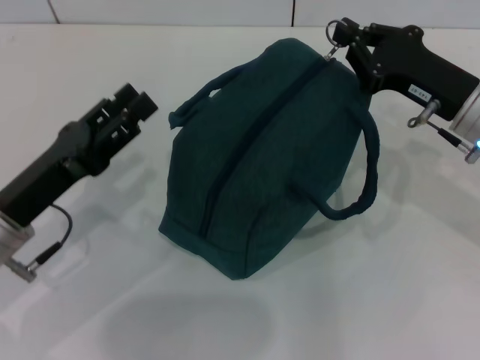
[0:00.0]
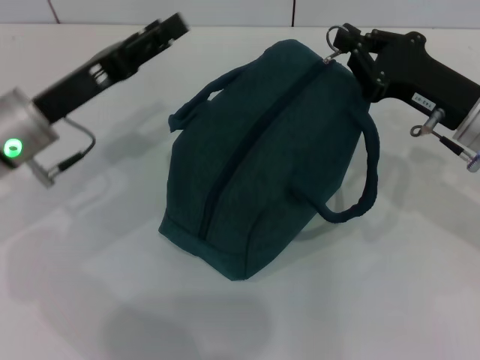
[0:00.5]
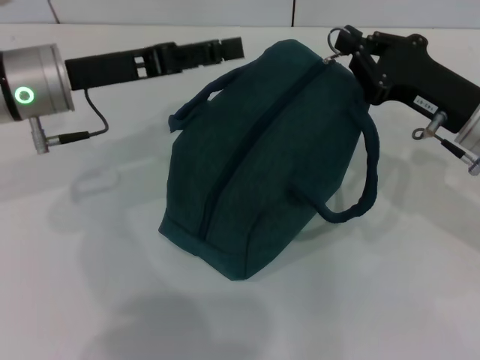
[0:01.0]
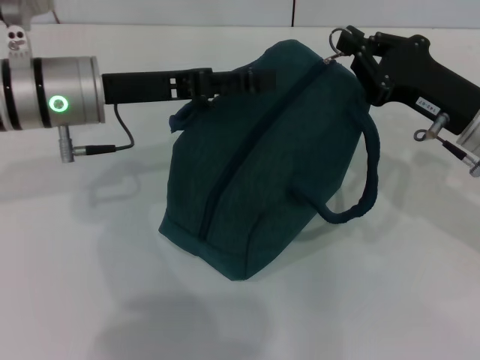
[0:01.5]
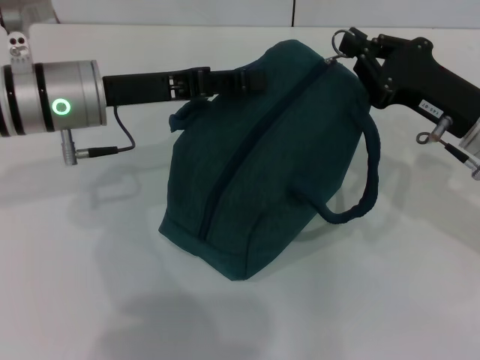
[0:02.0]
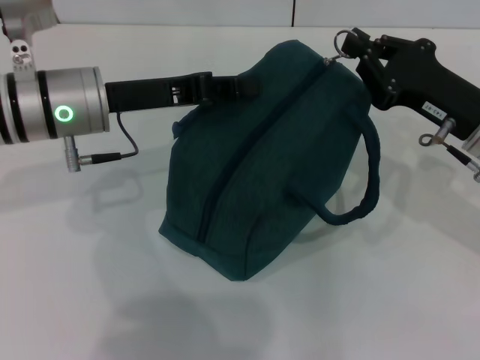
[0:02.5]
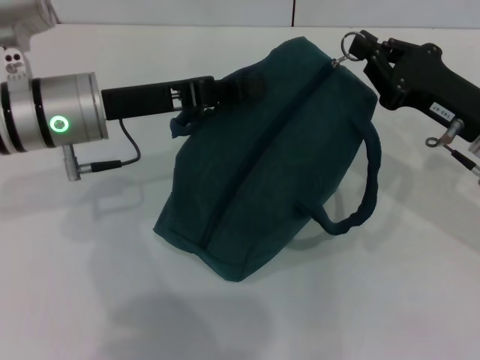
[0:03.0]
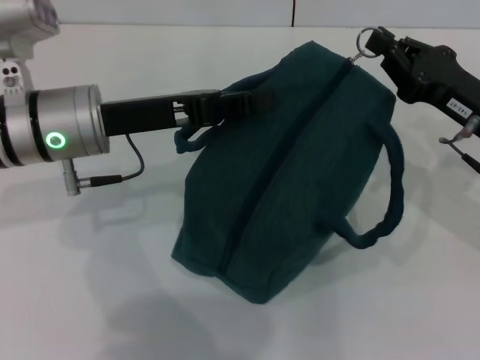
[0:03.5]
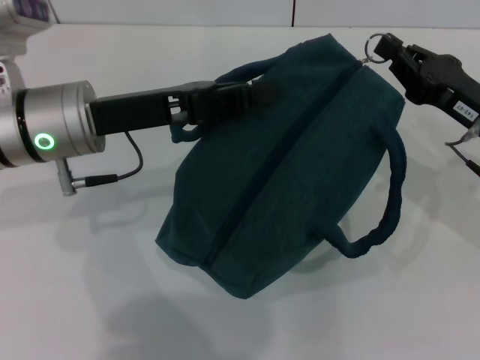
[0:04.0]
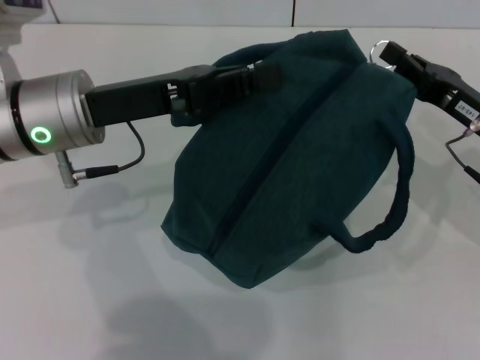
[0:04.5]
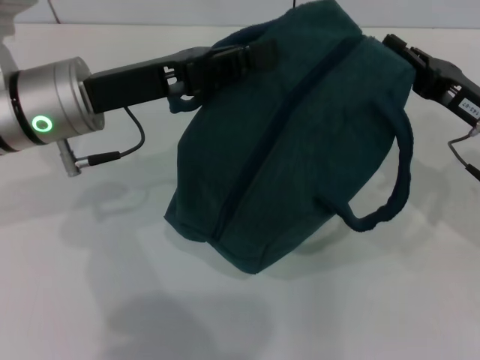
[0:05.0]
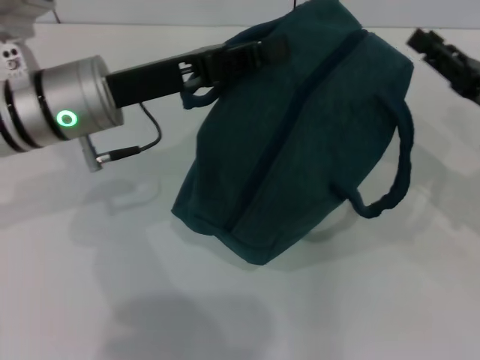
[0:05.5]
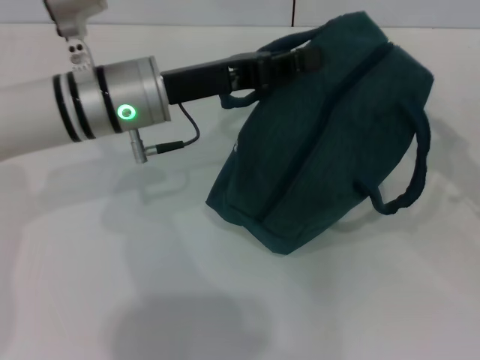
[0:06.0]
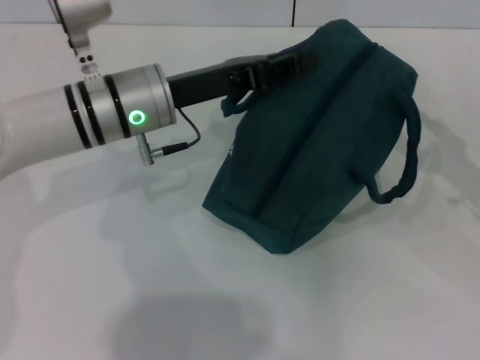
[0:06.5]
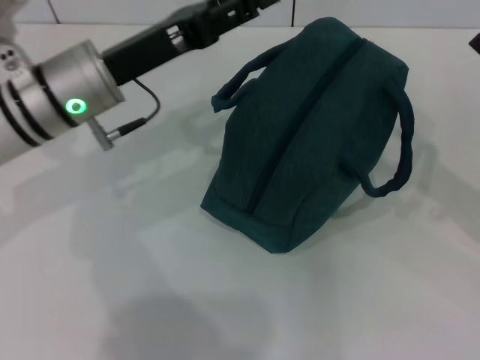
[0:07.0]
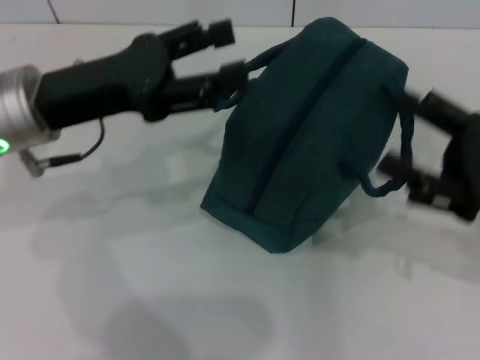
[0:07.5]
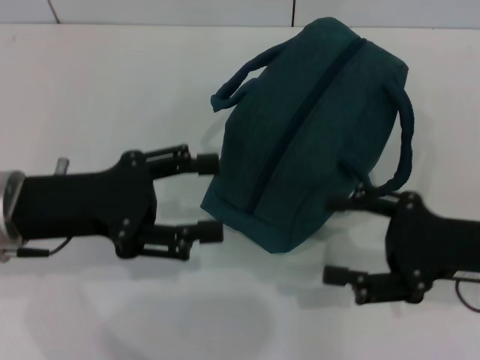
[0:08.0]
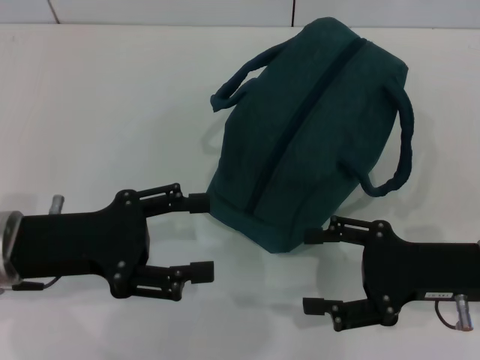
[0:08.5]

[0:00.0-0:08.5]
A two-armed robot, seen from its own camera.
Step, 0:00.0 to 0:05.0: Zip up the lunch bag with your right hand.
Step, 0:05.5 to 0:06.5: Hold the lunch bag with your left hand.
0:00.0 to 0:02.0: The left gripper is displaced forward, upward and to the right by some 15 cm, and opens and closes again.
0:02.0 to 0:04.0: The left gripper closes up.
0:04.0 to 0:06.5: The left gripper shifts by about 5 cm. The right gripper goes about 10 cm to the right, and opens.
0:06.5 to 0:08.5: The left gripper moves backward and to the left, some 15 cm, and opens up. Meanwhile the right gripper heads to the left, covering some 10 cm.
